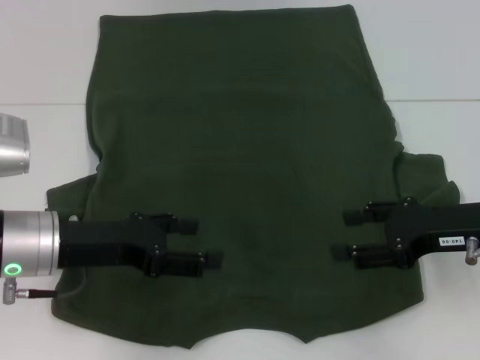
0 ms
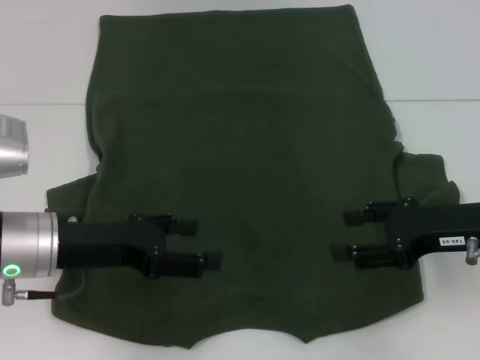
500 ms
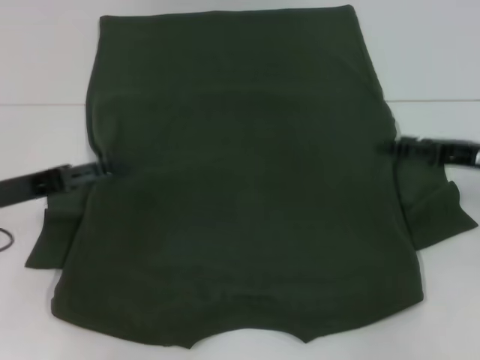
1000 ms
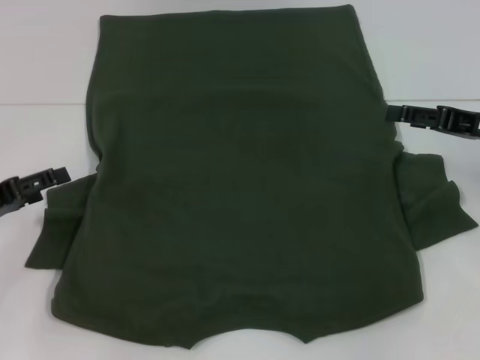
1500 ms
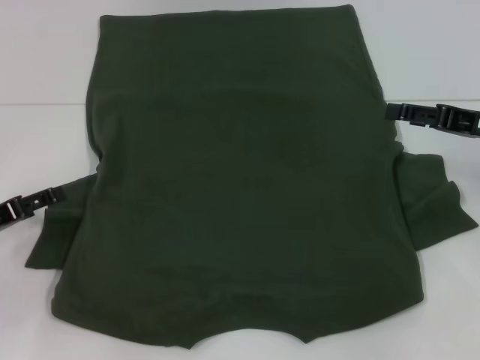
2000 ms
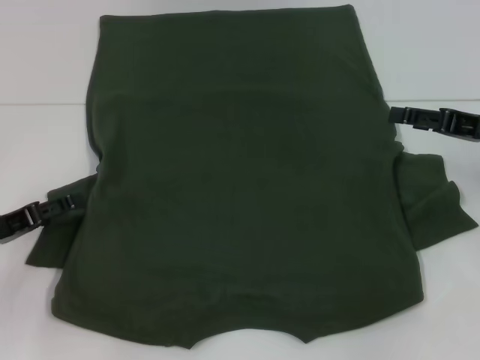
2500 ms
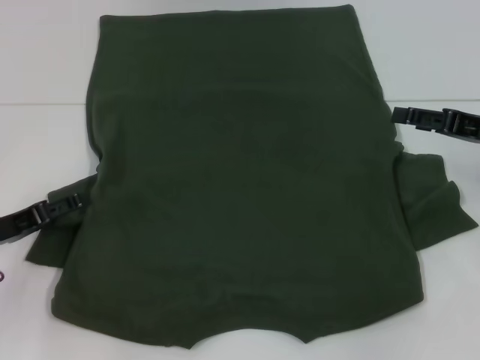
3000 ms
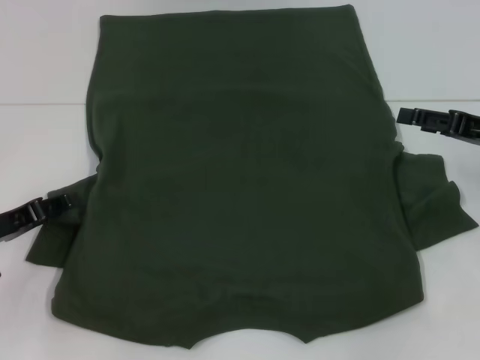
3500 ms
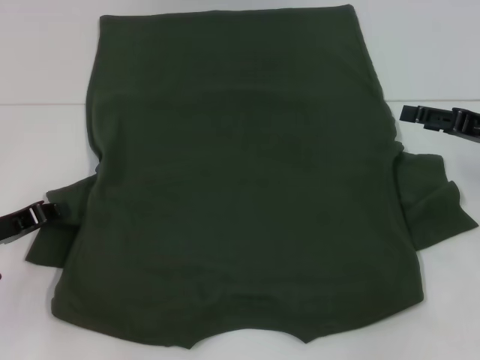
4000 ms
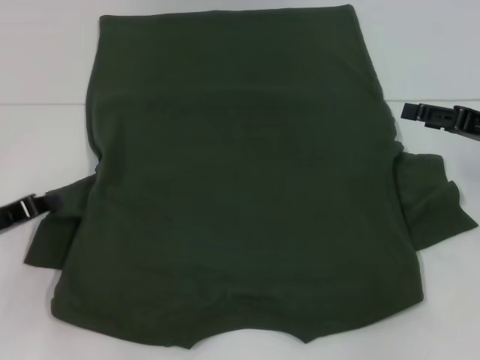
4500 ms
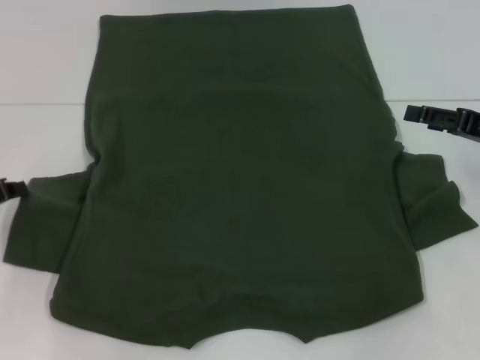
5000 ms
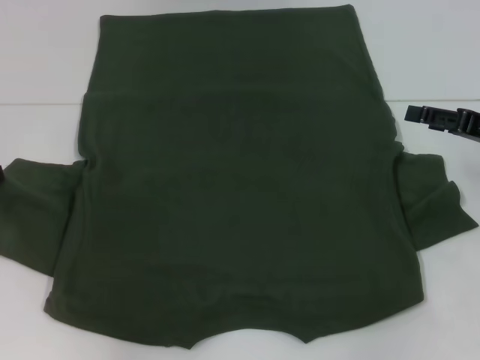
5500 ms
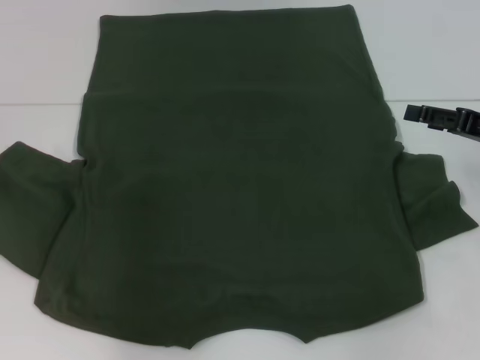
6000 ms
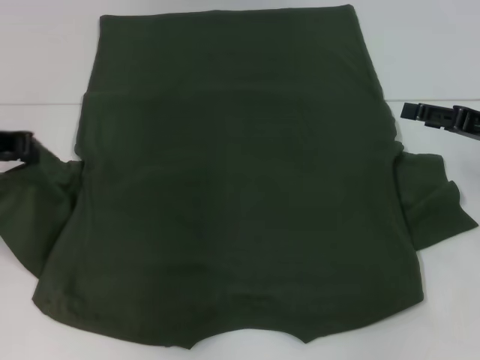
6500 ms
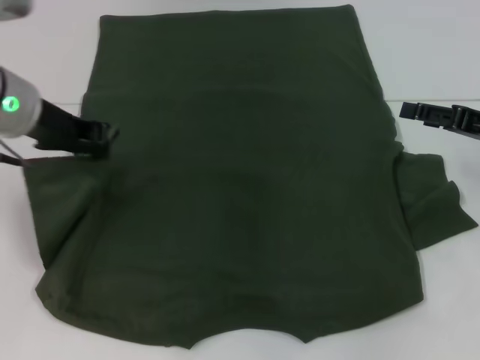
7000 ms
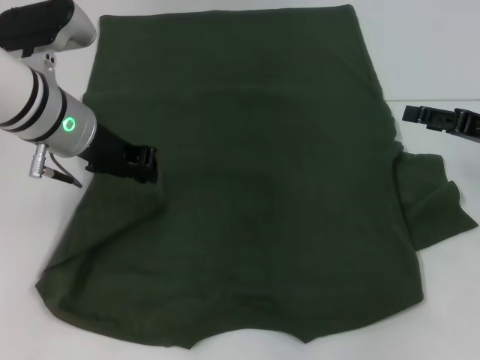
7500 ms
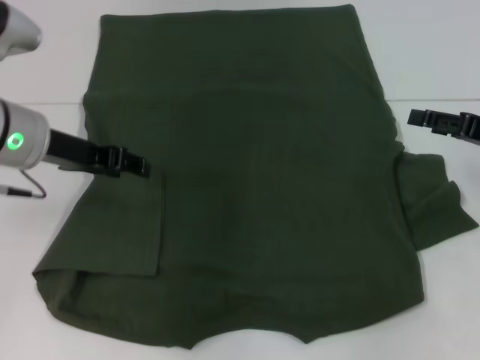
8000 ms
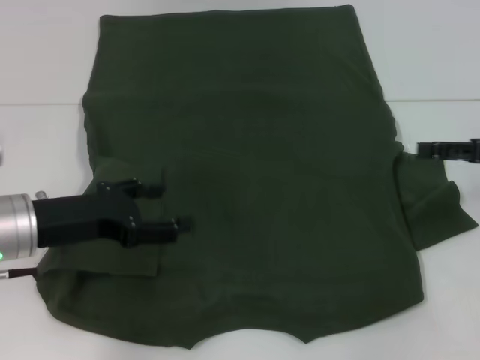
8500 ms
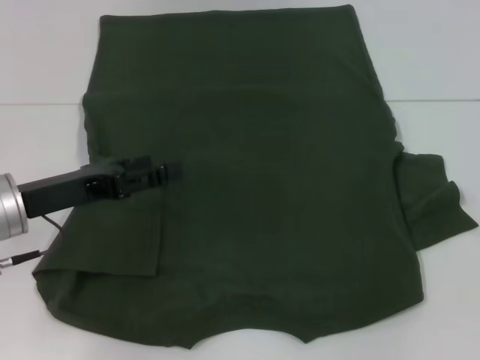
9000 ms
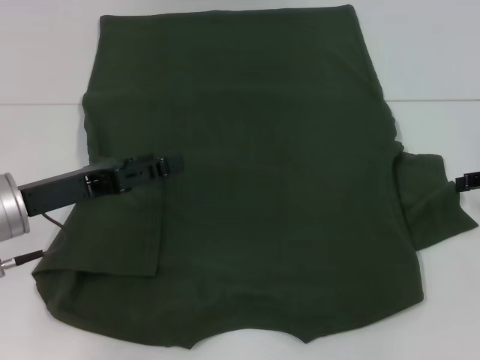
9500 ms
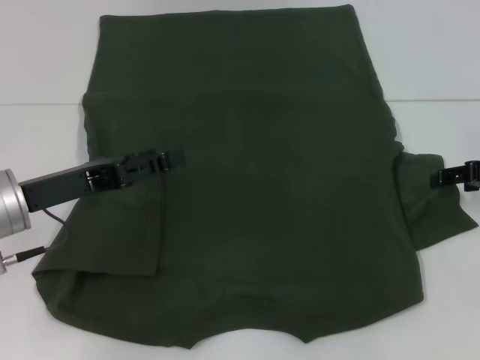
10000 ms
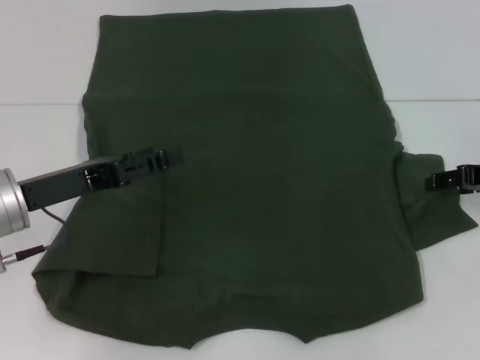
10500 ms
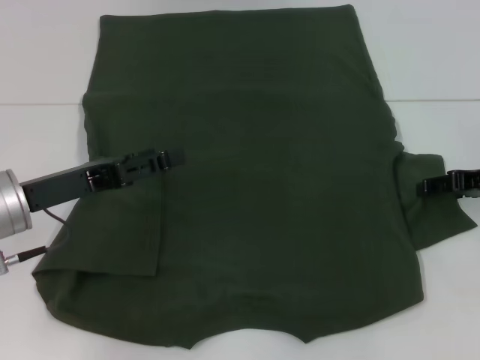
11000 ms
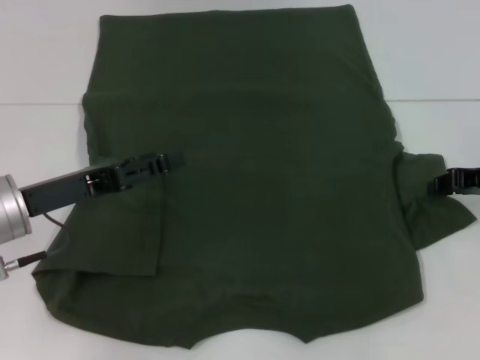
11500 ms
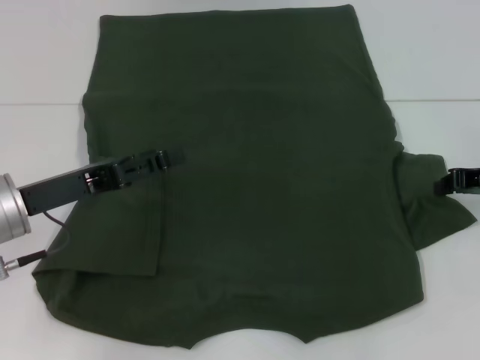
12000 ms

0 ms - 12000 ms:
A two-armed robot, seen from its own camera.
Step, 0 ms - 8500 ms: Fold the bottom left sleeve with your left hand.
0 ms - 2000 ms: The left gripper travels to the left and downward by some 15 cm. Meanwhile the right gripper goes roughly 5 cm forward.
2000 ms - 4000 ms: The left gripper closes.
4000 ms - 6000 ms: The left gripper moves upward and forward, some 10 cm.
6000 ms - 8000 ms: The left gripper shifts roughly 15 cm to the right.
8000 ms - 10000 ms: The left gripper goes approximately 10 cm backward and downward, and opens its fingers.
10000 ms - 12000 ms: The right gripper closes up.

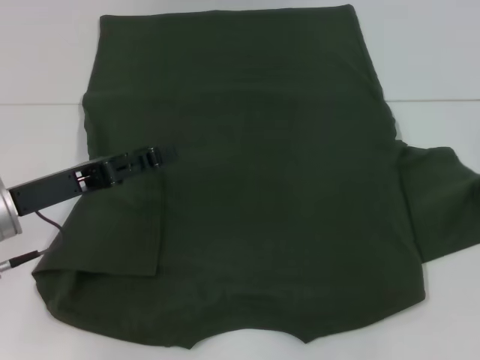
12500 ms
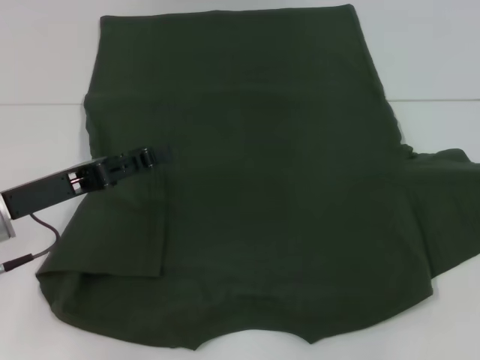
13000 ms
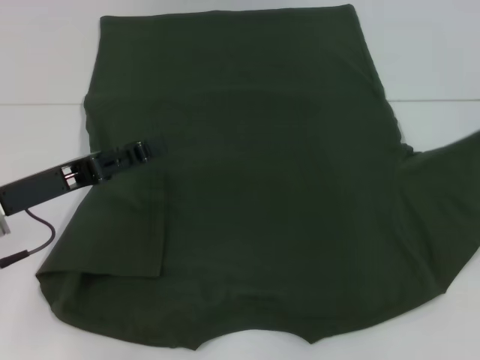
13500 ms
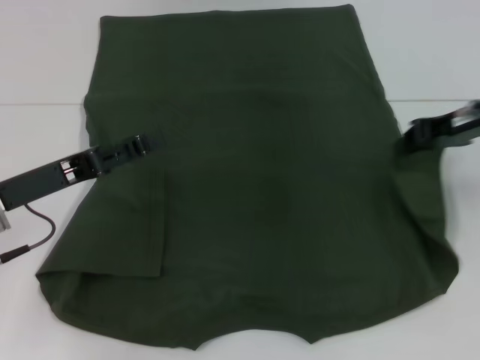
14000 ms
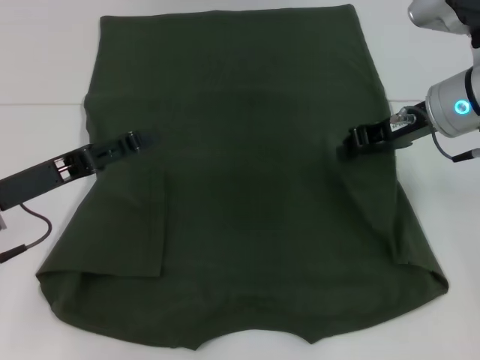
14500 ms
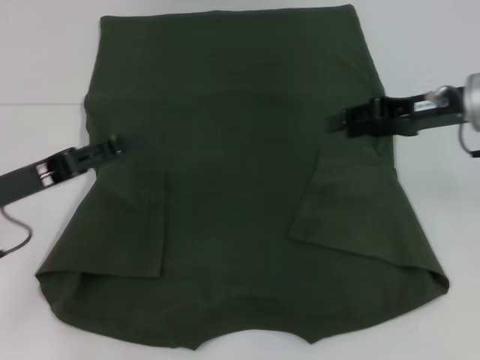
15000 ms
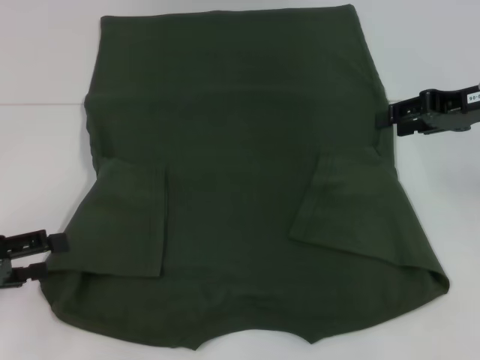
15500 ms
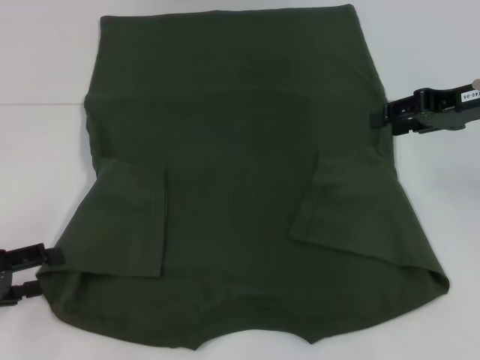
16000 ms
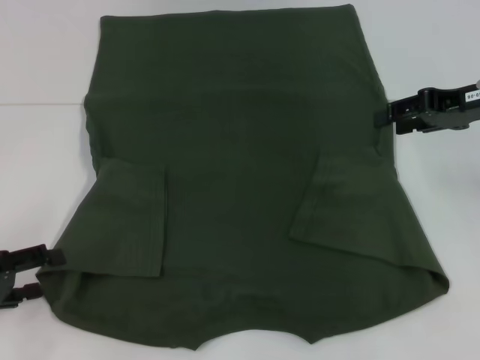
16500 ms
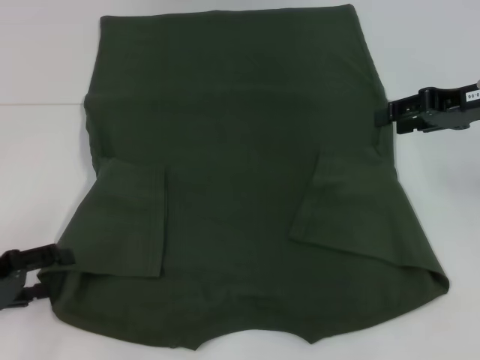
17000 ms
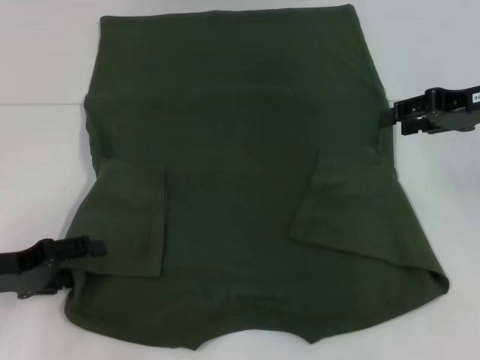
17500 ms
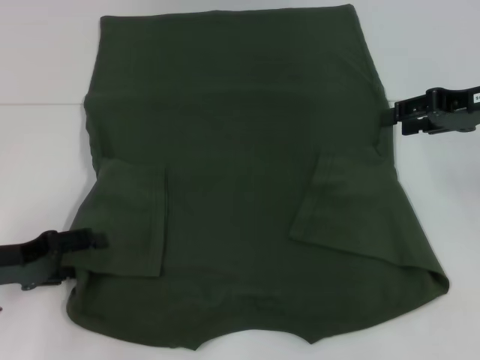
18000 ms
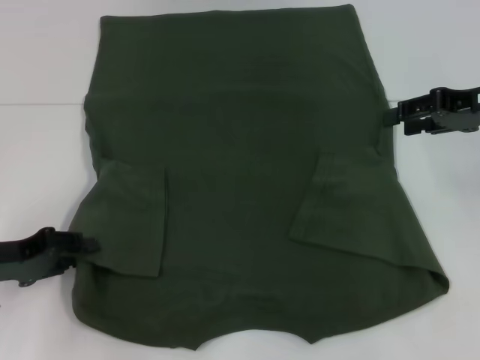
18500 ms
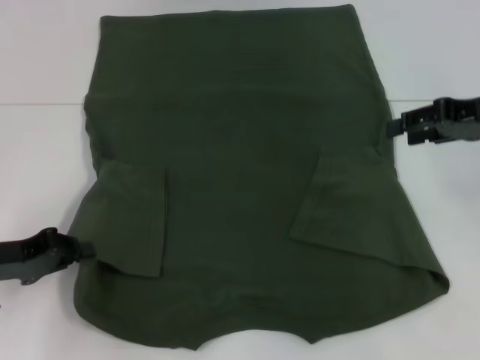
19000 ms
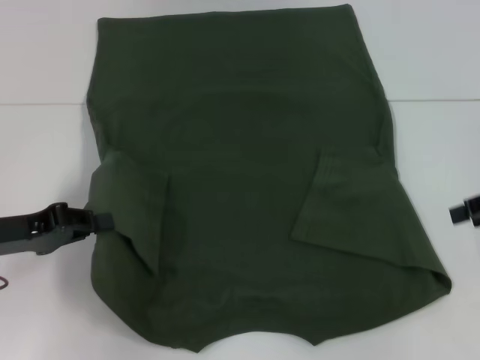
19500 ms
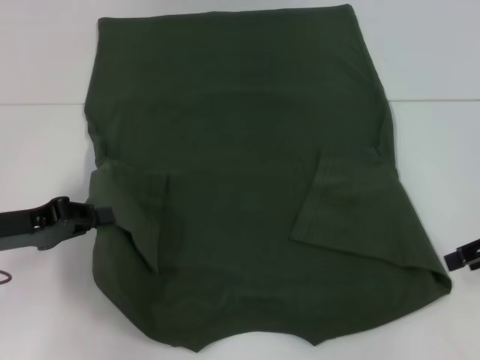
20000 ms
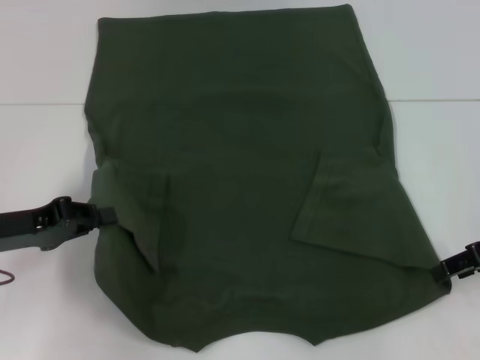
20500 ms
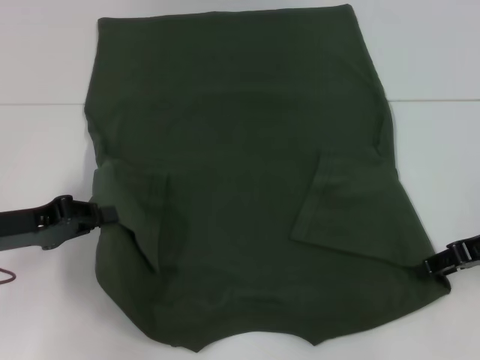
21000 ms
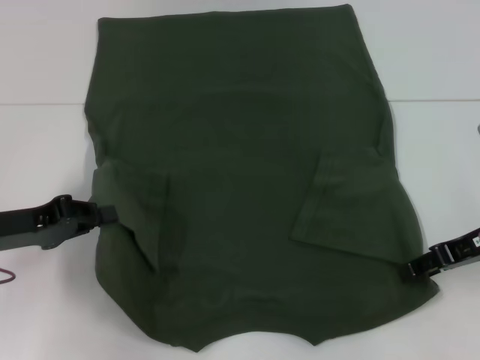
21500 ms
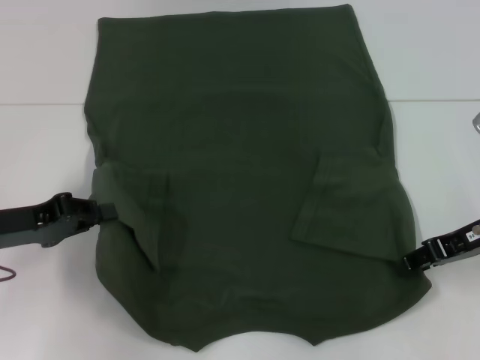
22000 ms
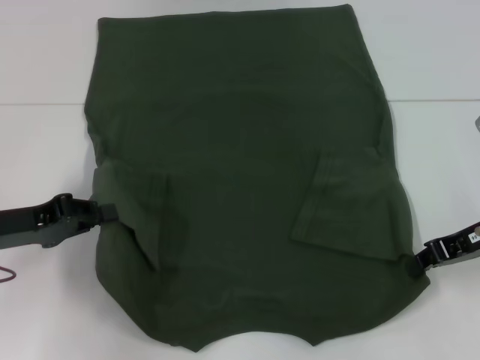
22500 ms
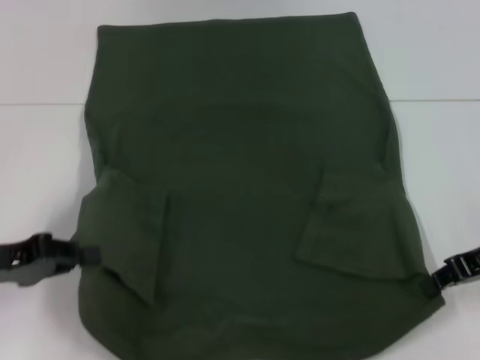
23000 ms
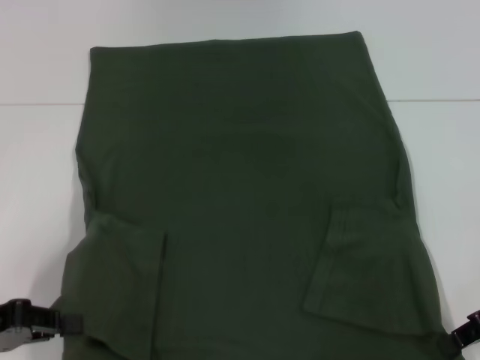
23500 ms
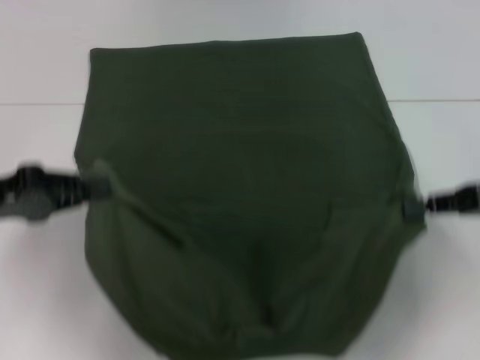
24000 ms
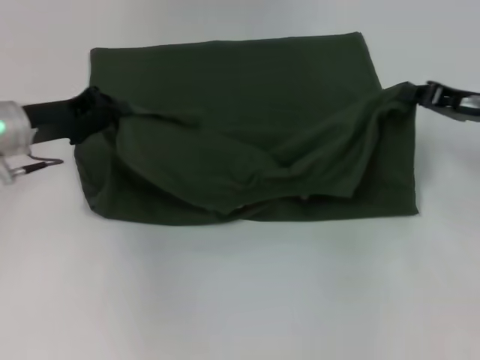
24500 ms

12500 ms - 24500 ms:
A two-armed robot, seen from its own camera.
Step, 12500 ms - 15000 ms: Fold the bottom right sleeve with your right hand.
Step, 15500 ms - 19000 ms: Grab the bottom left corner with your left hand.
Step, 19500 ms - 23000 ms: Grab the bottom right corner with your right hand.
12500 ms - 14500 ms: The right gripper moves to the left, some 15 cm.
14500 ms - 16500 ms: The right gripper goes some 10 cm to the right, and opens. Meanwhile the left gripper shifts about 10 cm to the left and downward.
16500 ms - 18500 ms: The left gripper ends up some 5 cm from where it was.
18500 ms - 20500 ms: The right gripper moves downward and backward, approximately 10 cm; the left gripper closes.
20500 ms - 22500 ms: The right gripper closes.
22500 ms - 24500 ms: The left gripper is displaced forward by approximately 10 cm; the right gripper is displaced forward by some 5 cm.

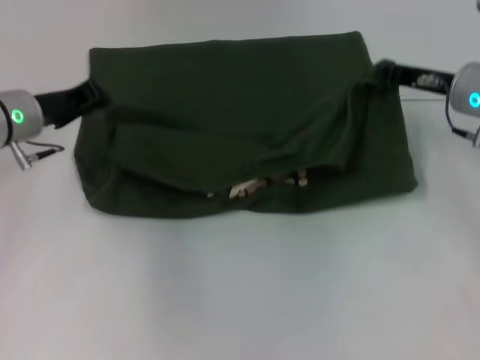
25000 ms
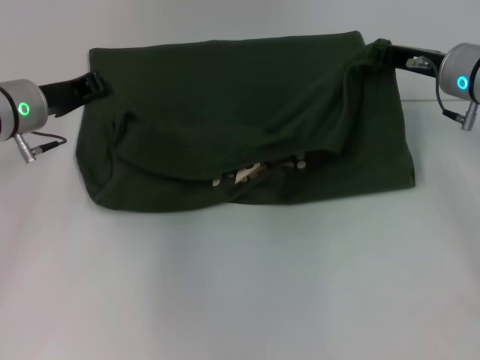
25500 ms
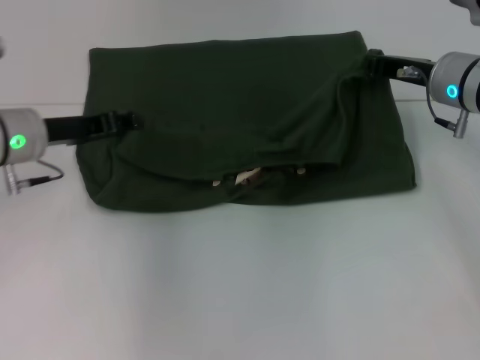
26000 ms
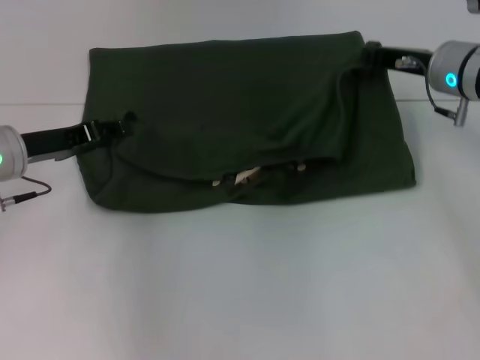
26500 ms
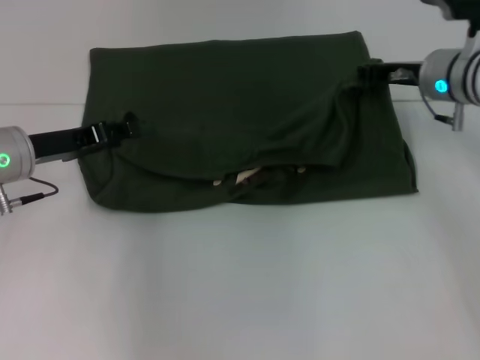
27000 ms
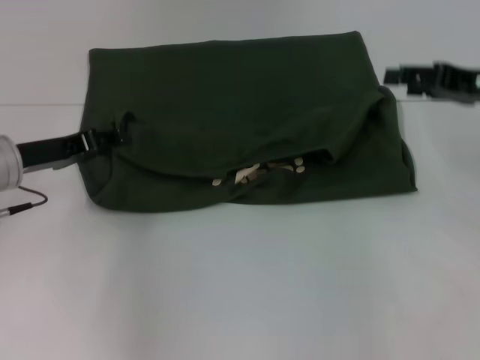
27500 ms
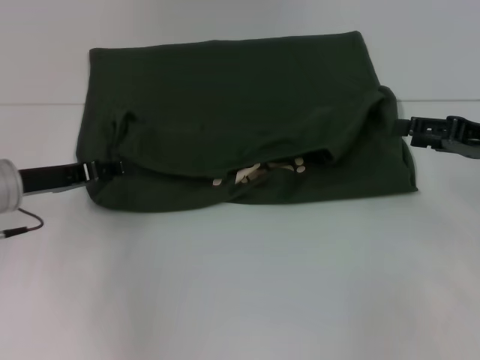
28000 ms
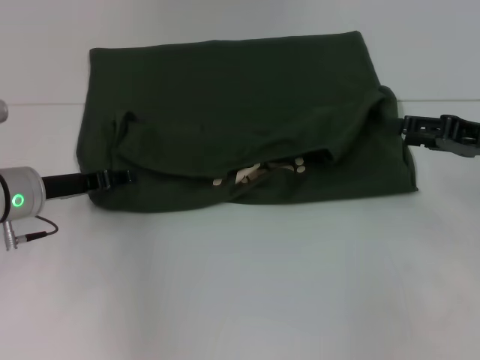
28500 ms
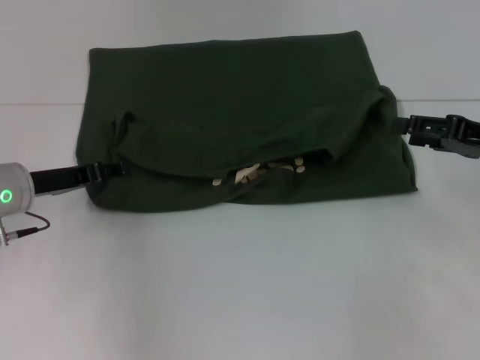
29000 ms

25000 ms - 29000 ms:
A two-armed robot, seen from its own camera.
Step, 25000 ms - 29000 ms: Fold the clothes with your left hand.
Step, 25000 ms - 29000 ms: Fold the clothes with your right hand.
25000 ms - 27000 ms: The left gripper opens.
27000 ms - 29000 ms: The right gripper goes some 15 cm backward and to the right, and opens.
